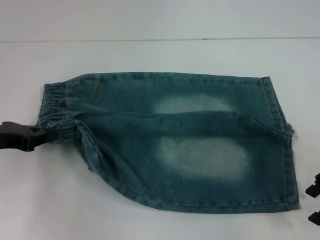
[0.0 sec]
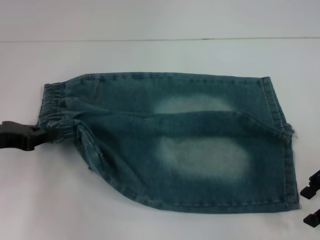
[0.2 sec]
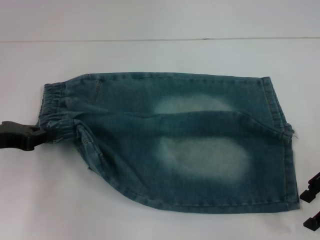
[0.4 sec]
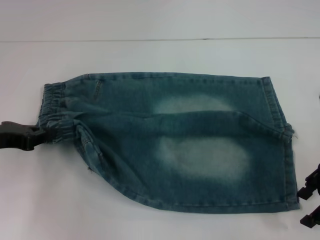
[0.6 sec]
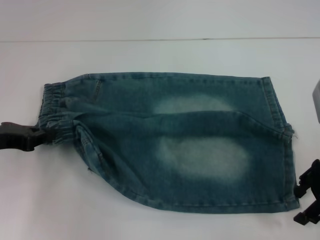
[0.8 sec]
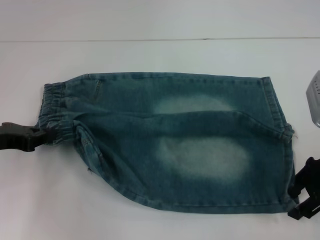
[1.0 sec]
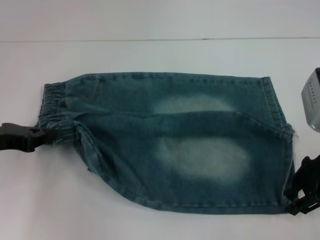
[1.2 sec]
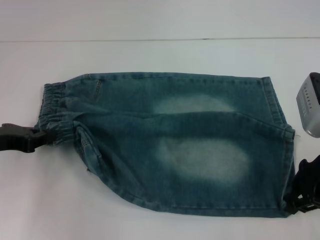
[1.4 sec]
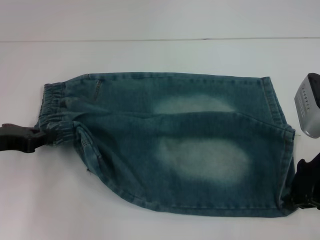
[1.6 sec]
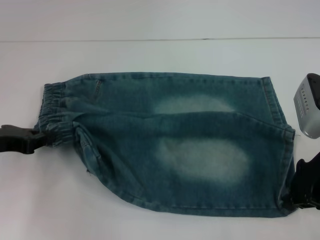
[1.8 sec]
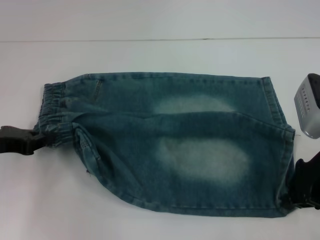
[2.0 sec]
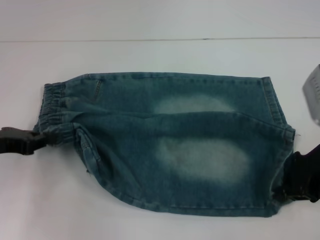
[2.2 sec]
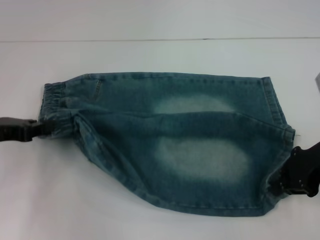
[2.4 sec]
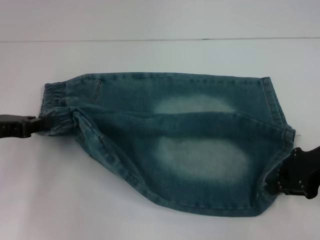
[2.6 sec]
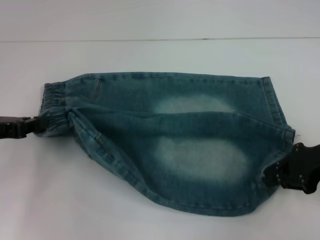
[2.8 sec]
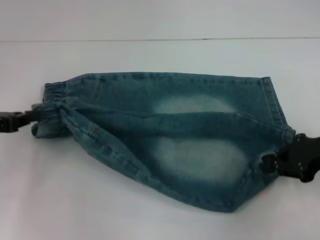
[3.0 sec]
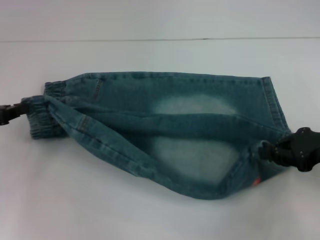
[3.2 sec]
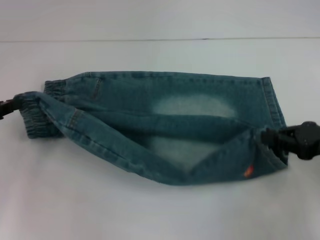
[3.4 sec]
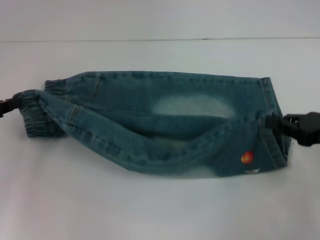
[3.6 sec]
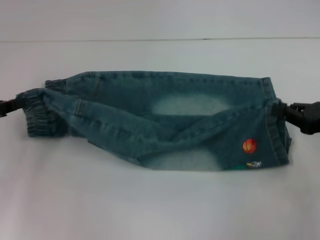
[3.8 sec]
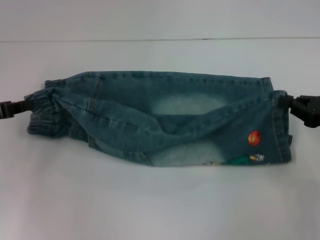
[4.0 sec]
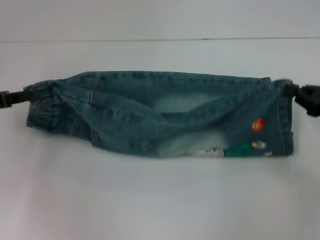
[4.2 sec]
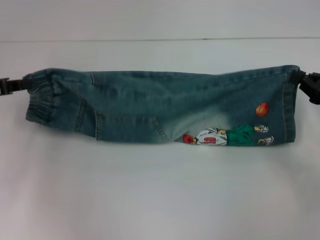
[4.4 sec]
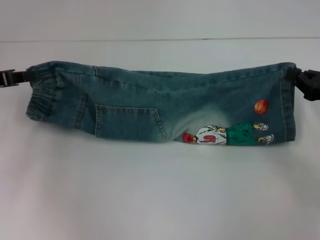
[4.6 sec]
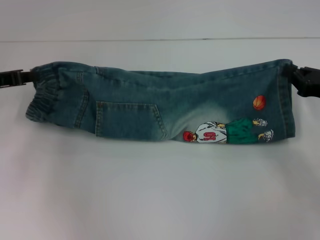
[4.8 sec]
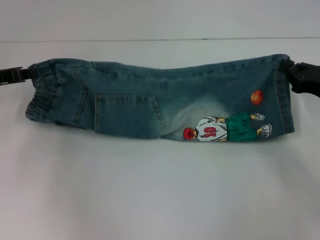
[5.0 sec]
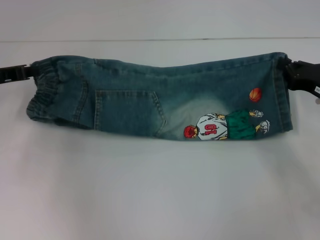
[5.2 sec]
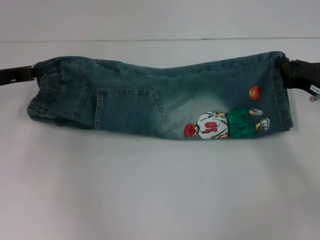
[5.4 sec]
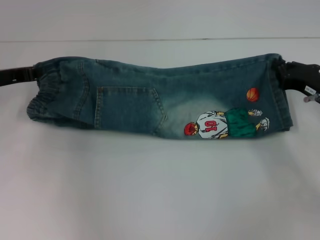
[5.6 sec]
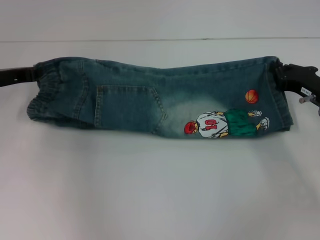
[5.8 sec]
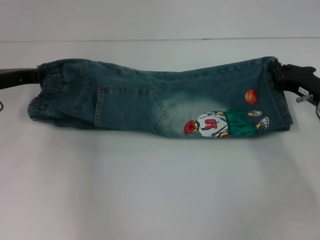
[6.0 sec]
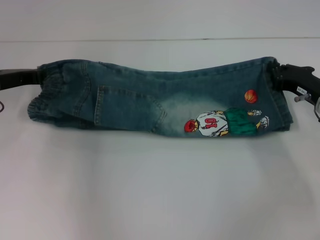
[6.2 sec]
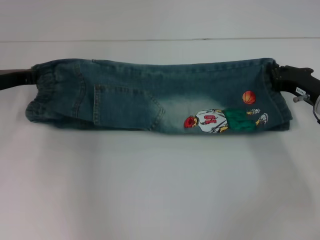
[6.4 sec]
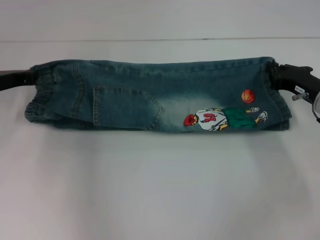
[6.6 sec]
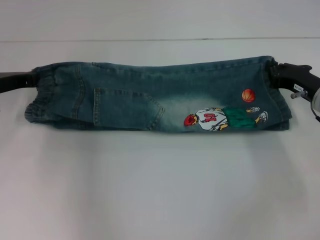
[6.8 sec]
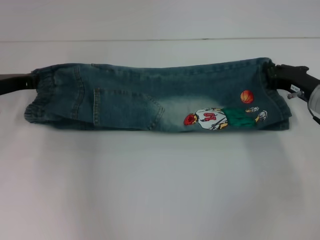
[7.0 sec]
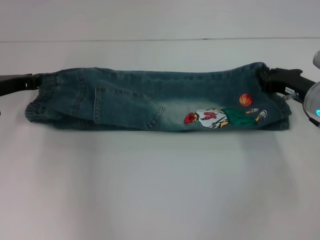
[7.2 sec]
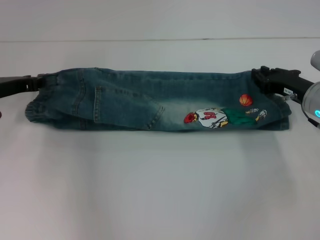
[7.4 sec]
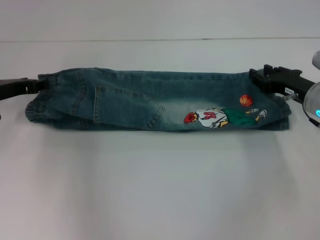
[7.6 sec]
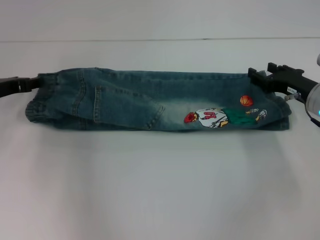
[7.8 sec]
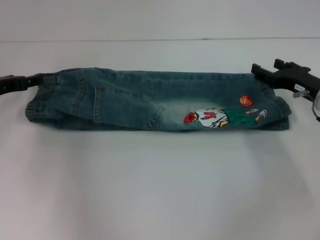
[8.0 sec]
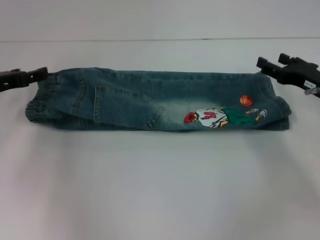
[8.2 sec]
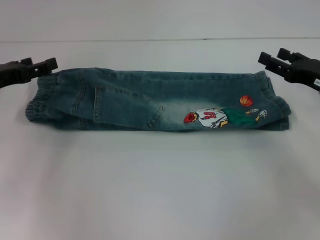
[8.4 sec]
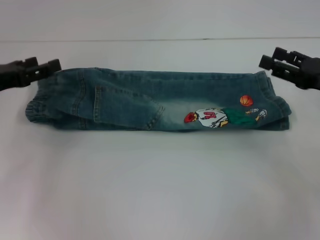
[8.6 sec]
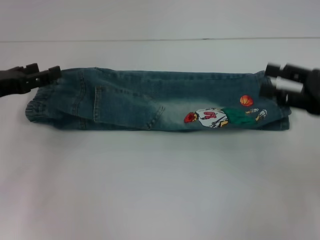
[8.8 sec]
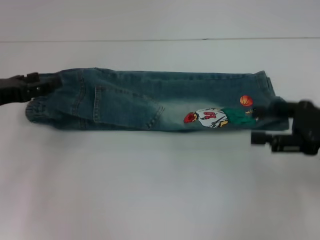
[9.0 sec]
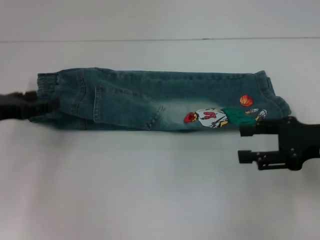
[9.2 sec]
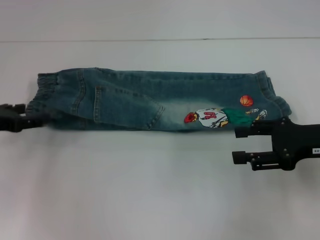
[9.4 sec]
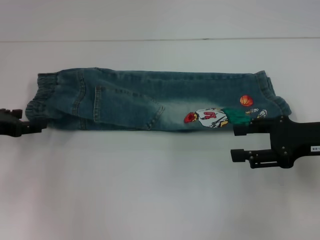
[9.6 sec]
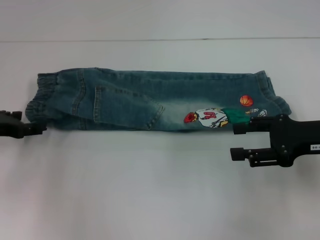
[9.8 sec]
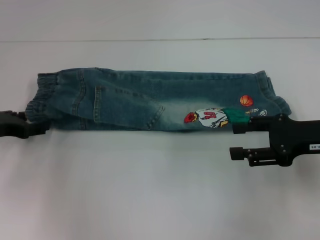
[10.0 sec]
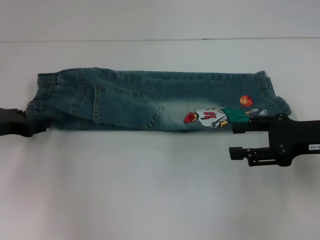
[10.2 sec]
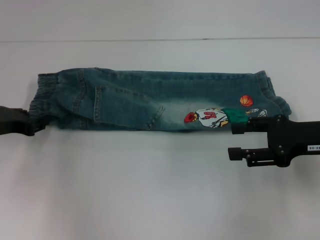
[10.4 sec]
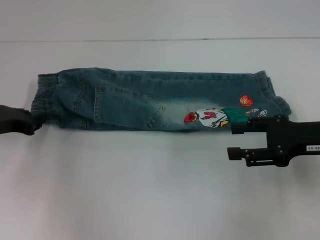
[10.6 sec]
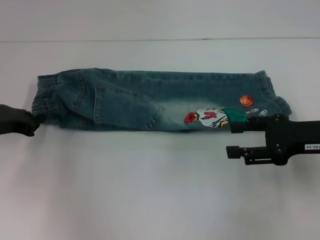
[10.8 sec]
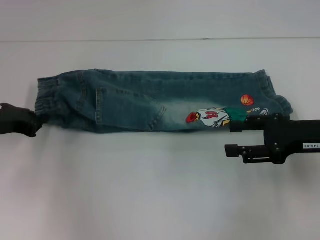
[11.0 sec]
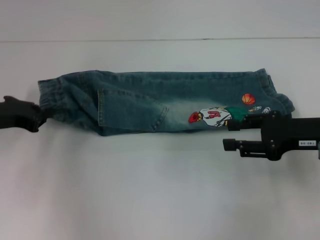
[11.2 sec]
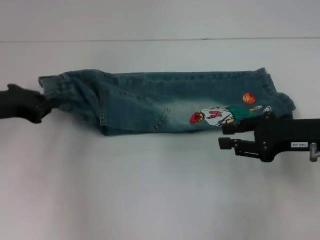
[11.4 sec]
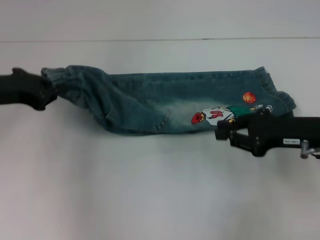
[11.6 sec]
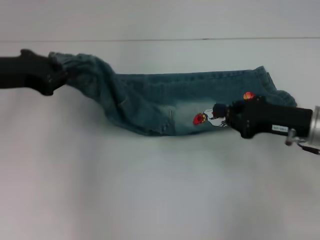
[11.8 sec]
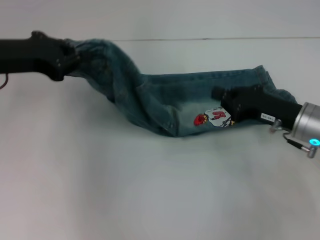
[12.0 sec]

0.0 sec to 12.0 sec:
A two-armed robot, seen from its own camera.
Step, 1.6 sec to 8.2 sec: Fold upward with your right hand.
Step, 8.4 sec to 10.6 sec: Hold the waistband with your left hand.
0.0 sec to 1.6 sec: The right gripper heads to the left, covering some 5 cm, and closes up.
1.6 sec to 3.0 sec: The right gripper goes approximately 5 cm to the right.
3.0 sec to 4.4 sec: The right gripper moves roughly 5 cm.
4.4 sec to 6.0 sec: The right gripper shifts approximately 5 cm to the left, while the left gripper travels forward and to the right by approximately 5 cm.
6.0 sec to 7.6 sec: The left gripper opens up.
7.6 sec to 9.0 sec: The right gripper shifts about 10 cm backward and upward, and opens. The left gripper is displaced backward by about 5 cm, and opens.
9.0 sec to 10.4 sec: The left gripper closes its fingers.
10.4 sec to 12.0 sec: The left gripper heads upward, covering roughly 10 cm, and closes. The right gripper shifts by roughly 5 cm, and closes up.

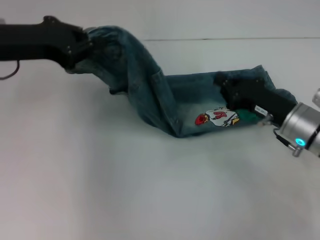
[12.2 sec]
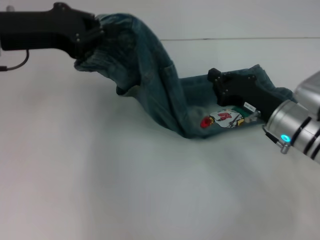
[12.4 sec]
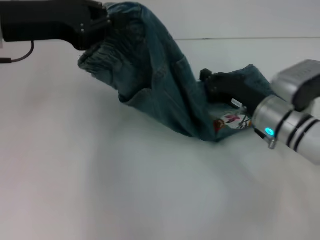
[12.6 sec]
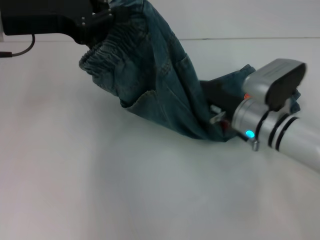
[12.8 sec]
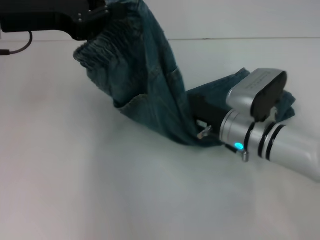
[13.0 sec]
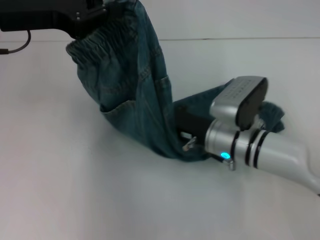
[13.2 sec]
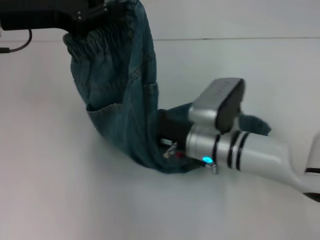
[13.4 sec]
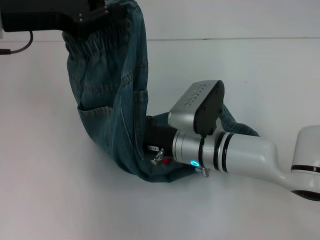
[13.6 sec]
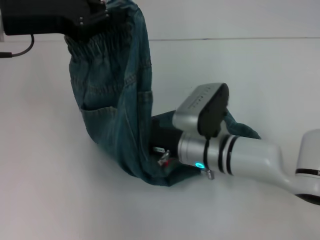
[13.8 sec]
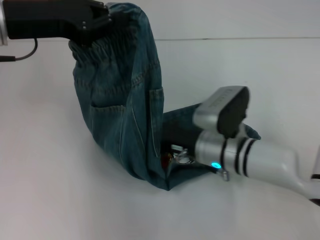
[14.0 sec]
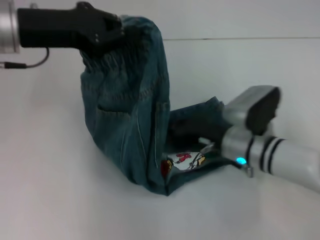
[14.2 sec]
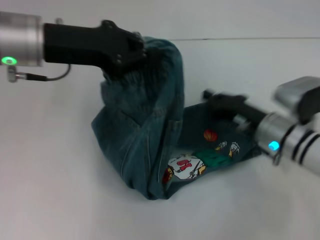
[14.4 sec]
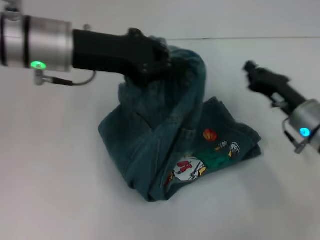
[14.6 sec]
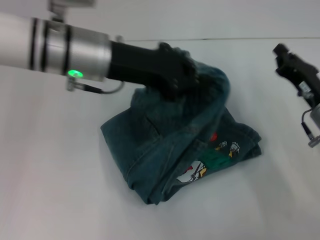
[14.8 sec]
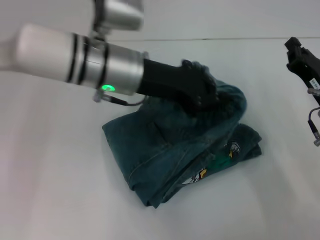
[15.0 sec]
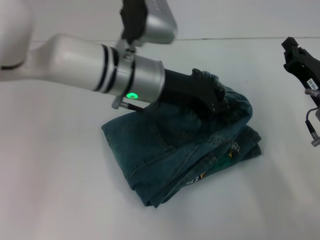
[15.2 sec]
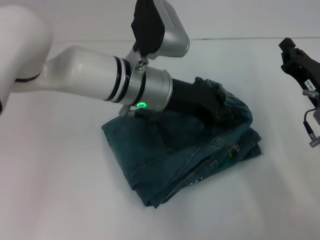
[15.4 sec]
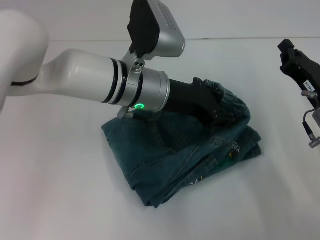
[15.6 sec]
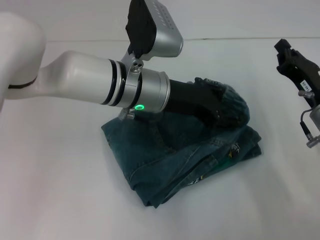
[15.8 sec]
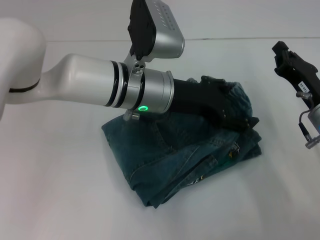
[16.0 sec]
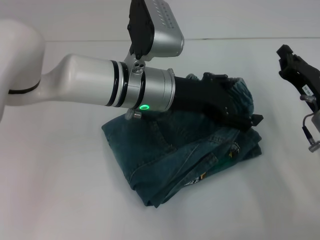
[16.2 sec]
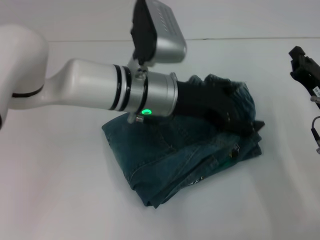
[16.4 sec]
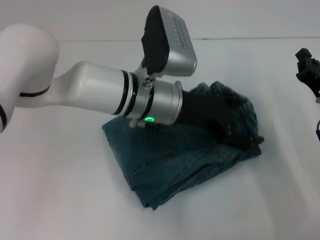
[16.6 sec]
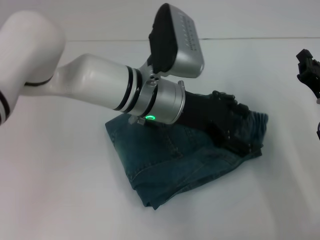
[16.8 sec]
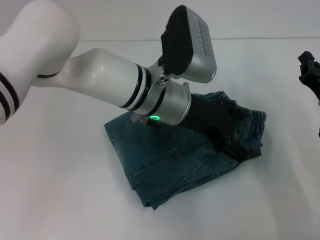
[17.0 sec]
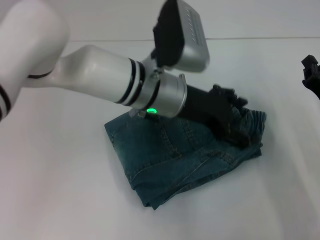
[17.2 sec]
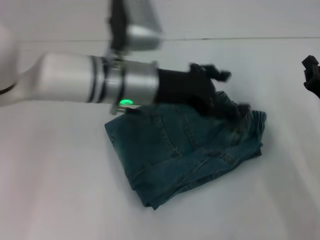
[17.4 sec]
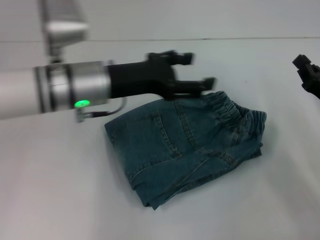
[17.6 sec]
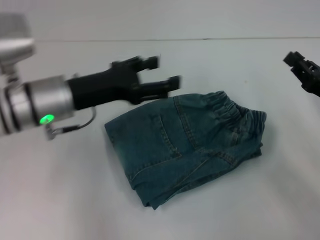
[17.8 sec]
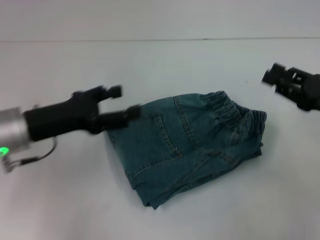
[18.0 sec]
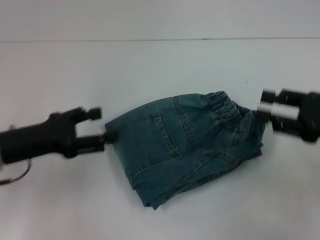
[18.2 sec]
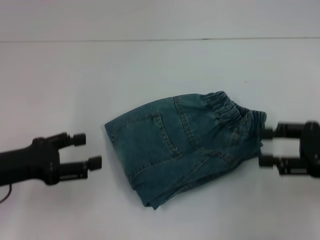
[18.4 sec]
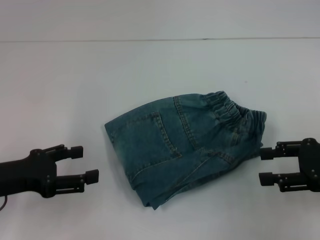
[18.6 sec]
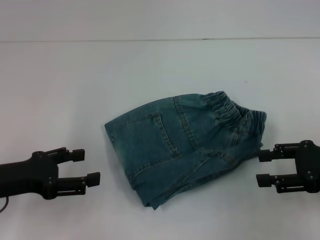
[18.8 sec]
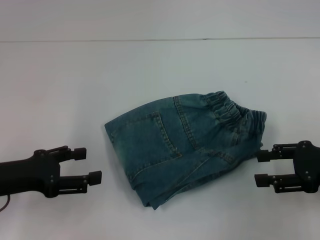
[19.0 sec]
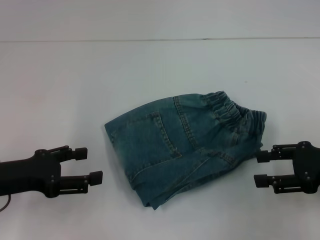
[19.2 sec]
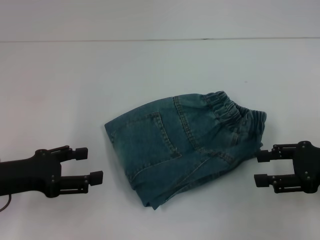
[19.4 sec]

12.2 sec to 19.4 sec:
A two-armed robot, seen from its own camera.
Step, 12.2 sec to 14.0 sec: Press the middle of the pants with your right hand.
Step, 14.2 sec to 17.0 sec: Fold to the right with your left hand.
12.2 sec to 13.6 sec: The right gripper heads to the left, covering approximately 15 cm.
13.6 sec to 15.0 sec: The right gripper shifts some 20 cm to the right, while the left gripper goes approximately 15 cm to the right and downward.
15.0 sec to 16.6 sec: The left gripper travels to the right by about 5 cm, and opens its fingers.
16.6 sec to 18.0 sec: The right gripper heads upward, covering approximately 5 cm. The left gripper heads to the left, covering some 20 cm.
18.0 sec to 19.4 sec: The left gripper heads backward and to the left, covering about 10 cm. Meanwhile the right gripper opens.
